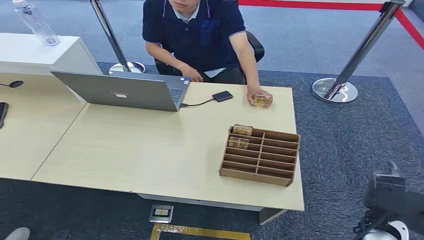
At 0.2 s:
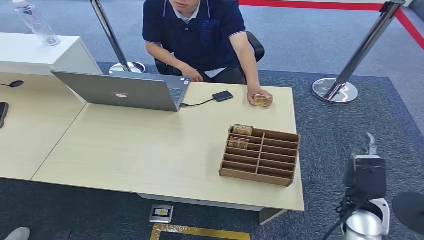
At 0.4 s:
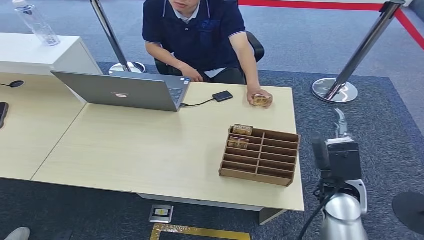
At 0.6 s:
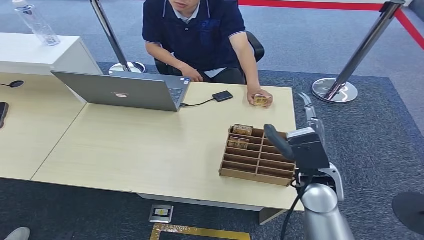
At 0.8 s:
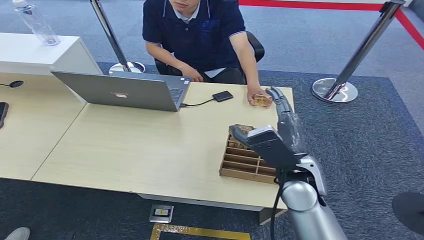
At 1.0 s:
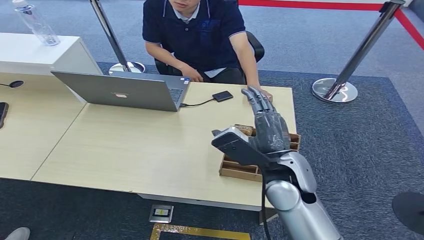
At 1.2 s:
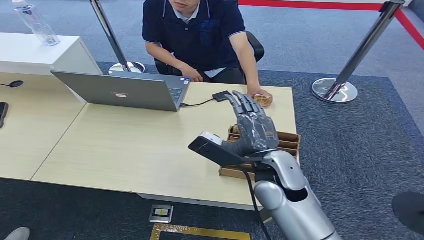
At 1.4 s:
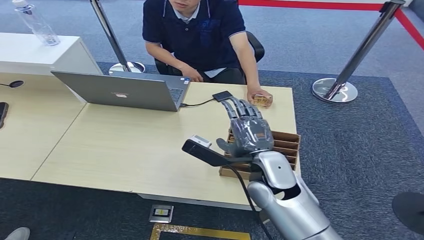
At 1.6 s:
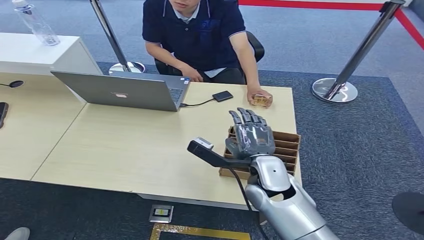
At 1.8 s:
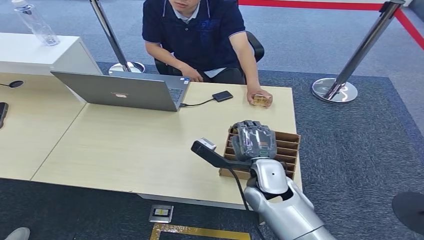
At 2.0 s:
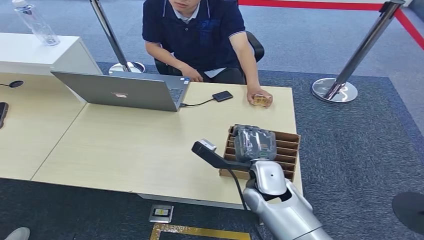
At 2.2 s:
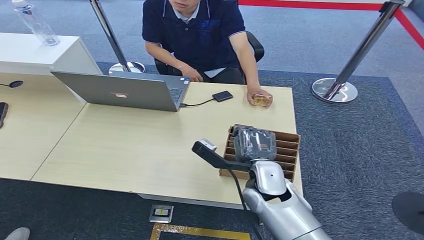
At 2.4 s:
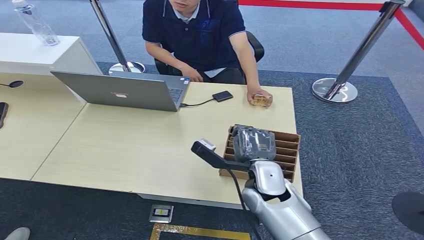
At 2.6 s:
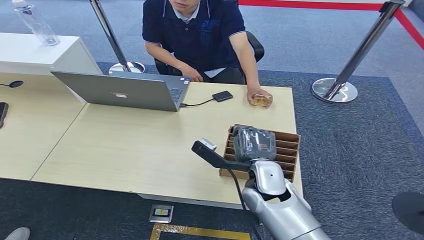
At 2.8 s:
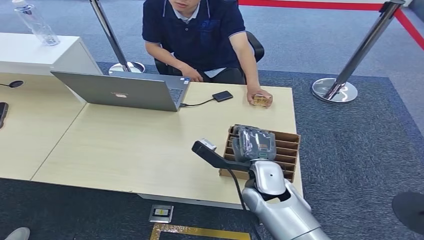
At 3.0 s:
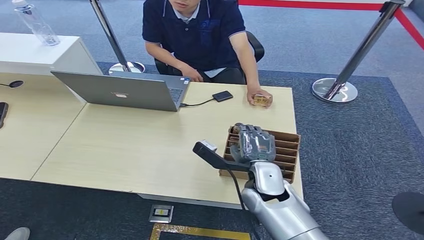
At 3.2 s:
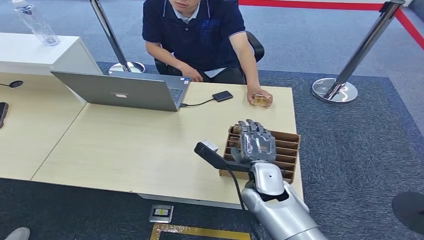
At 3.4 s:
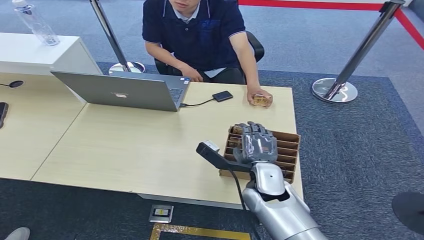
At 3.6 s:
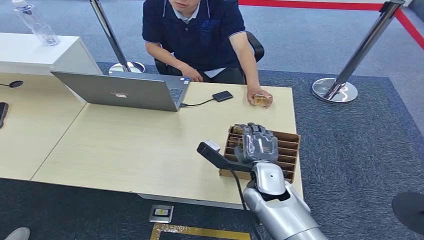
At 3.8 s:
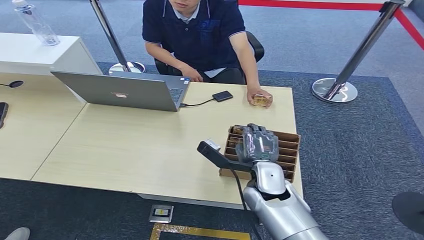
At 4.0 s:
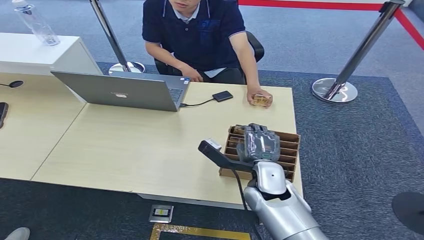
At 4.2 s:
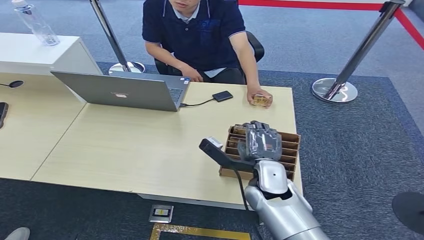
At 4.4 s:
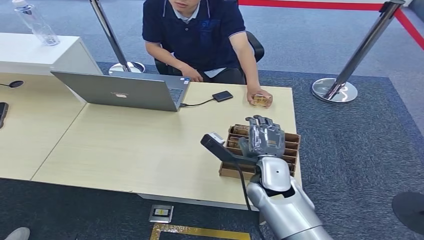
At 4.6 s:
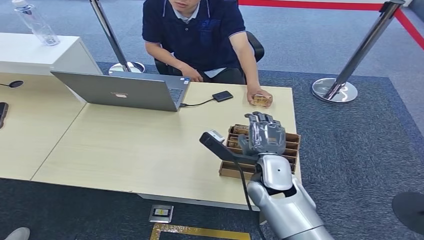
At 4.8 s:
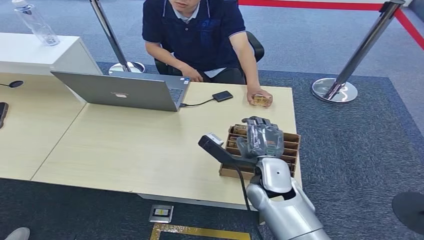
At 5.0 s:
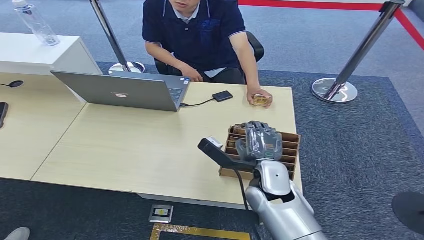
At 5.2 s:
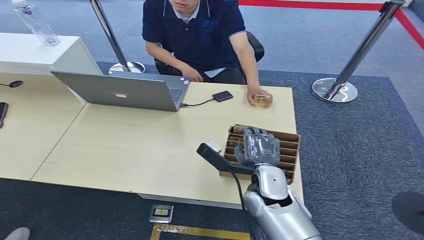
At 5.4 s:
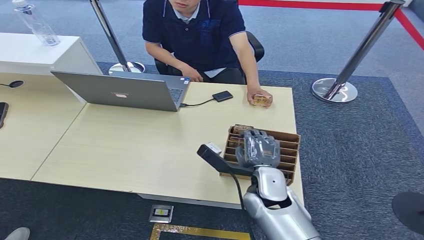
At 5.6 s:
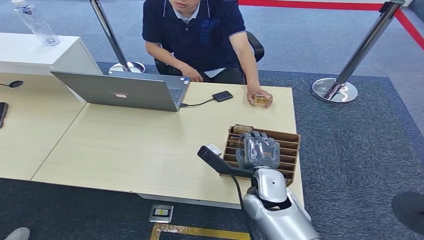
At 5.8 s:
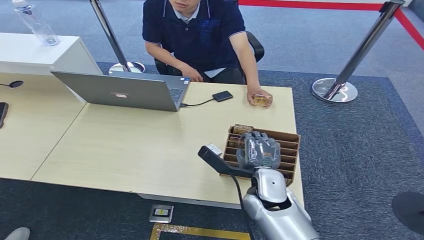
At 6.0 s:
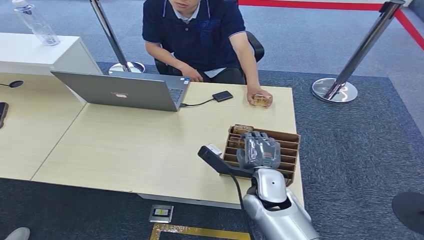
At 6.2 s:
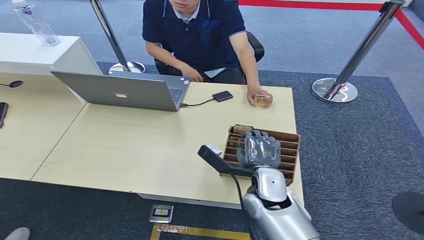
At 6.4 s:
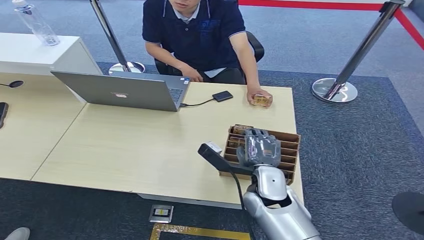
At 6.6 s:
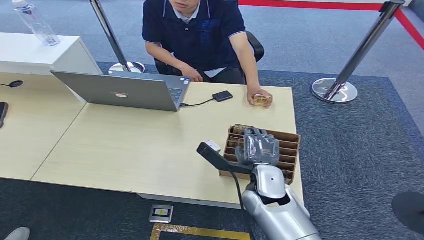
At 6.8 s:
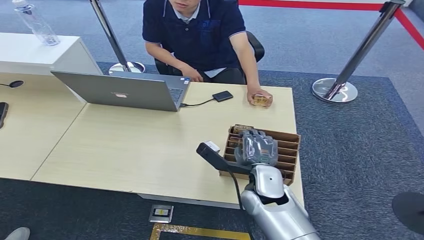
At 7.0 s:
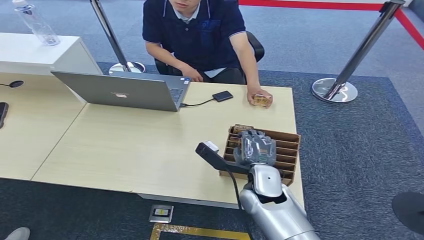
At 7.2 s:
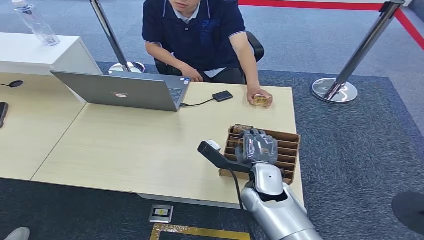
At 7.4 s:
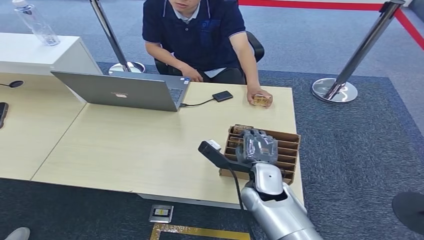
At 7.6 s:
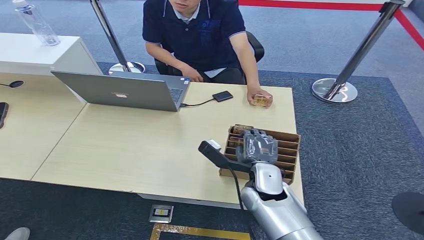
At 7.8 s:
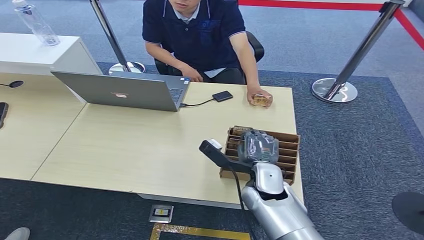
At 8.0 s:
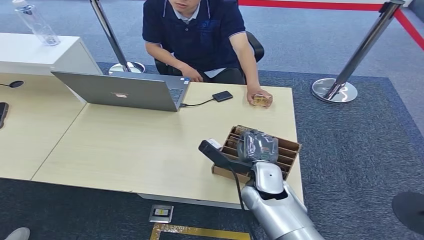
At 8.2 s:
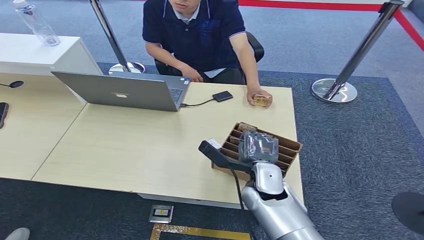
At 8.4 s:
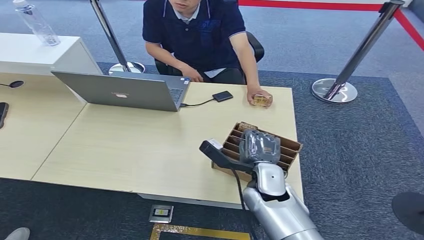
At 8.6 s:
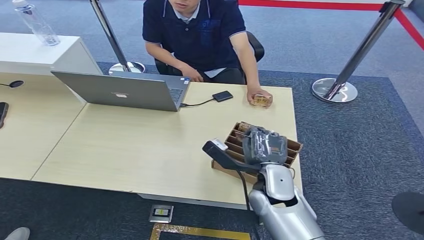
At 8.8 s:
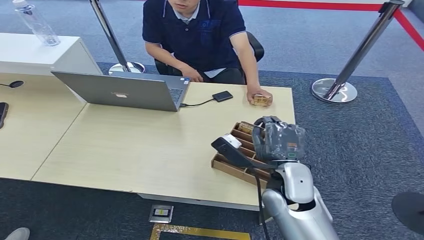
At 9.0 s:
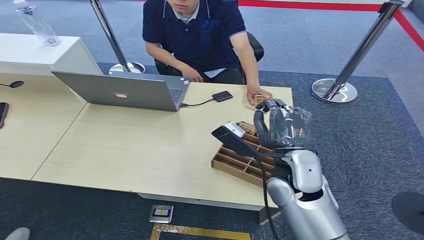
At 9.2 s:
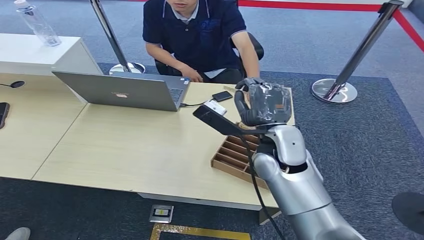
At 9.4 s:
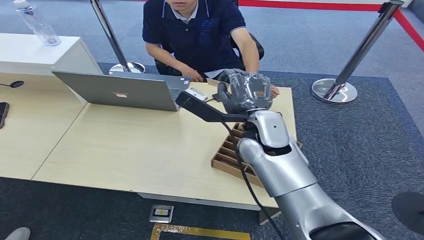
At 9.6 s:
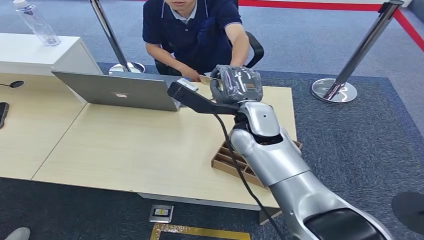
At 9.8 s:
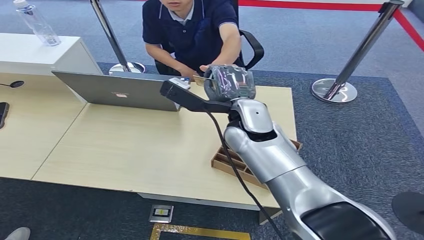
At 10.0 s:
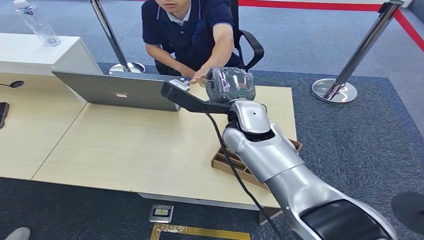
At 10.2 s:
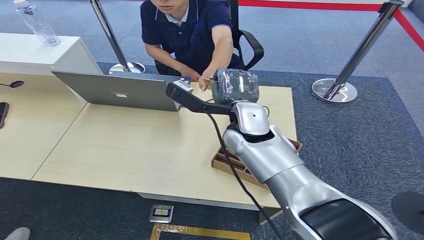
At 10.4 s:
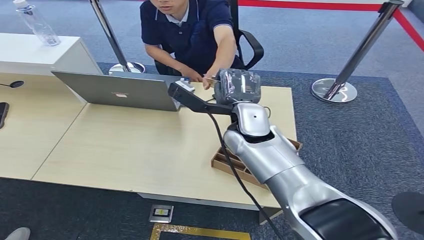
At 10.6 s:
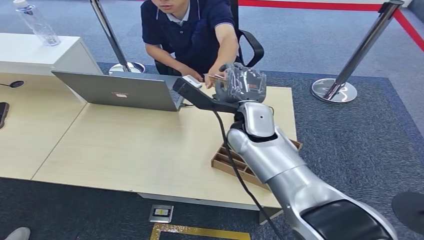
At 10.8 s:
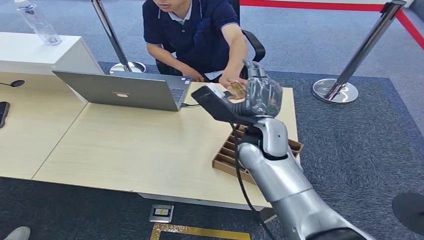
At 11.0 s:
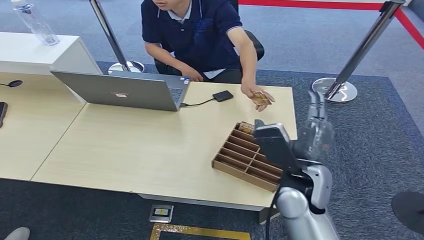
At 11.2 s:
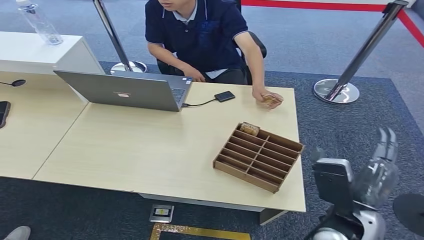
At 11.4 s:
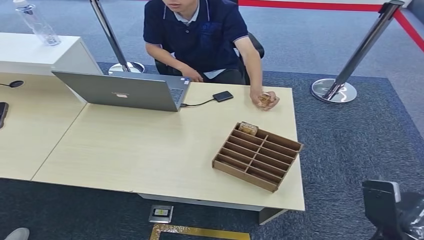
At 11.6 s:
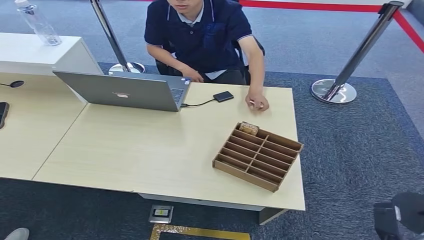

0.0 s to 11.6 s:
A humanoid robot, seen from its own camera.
Step, 0.0 to 9.0 s: Pick up the key card from the card box.
Step, 9.2 to 11.6 s: Hand the key card to the target.
1.4 to 2.8 s: The right hand shifts some 5 cm downward.
2.8 to 7.2 s: There are only small adjustments of the hands.
7.2 to 8.8 s: The right hand shifts some 5 cm upward.
8.8 to 10.2 s: The right hand goes roughly 15 cm forward, upward and to the left.
10.2 to 11.6 s: The right hand travels to the right, backward and downward by about 40 cm.

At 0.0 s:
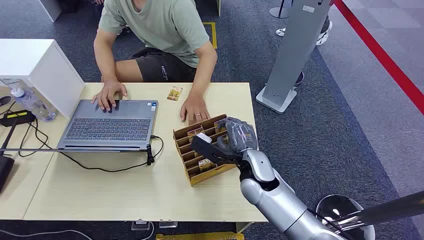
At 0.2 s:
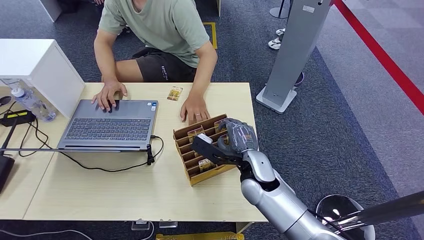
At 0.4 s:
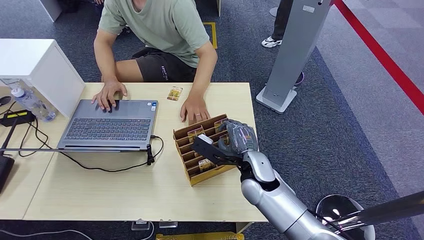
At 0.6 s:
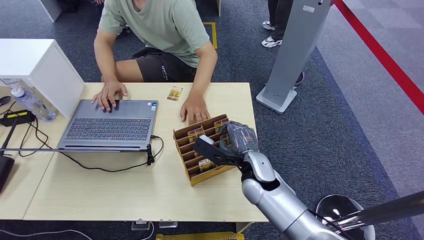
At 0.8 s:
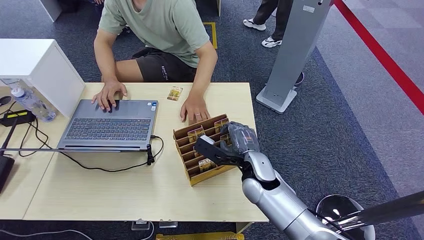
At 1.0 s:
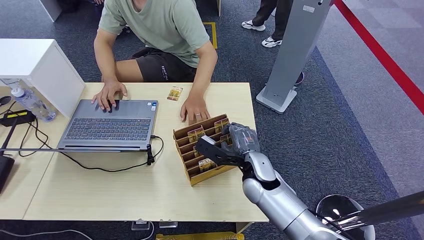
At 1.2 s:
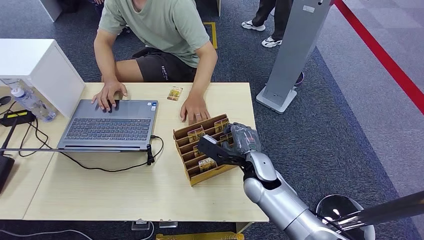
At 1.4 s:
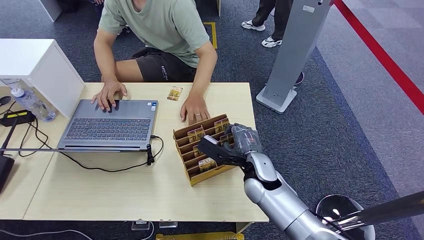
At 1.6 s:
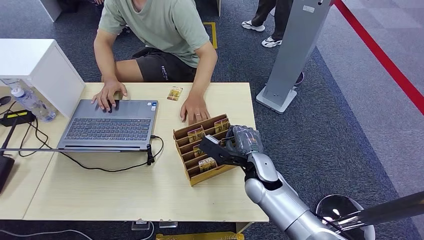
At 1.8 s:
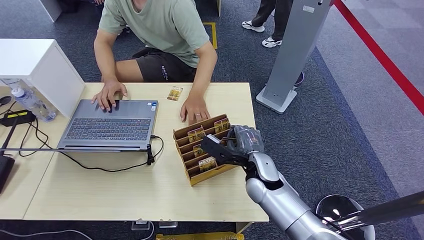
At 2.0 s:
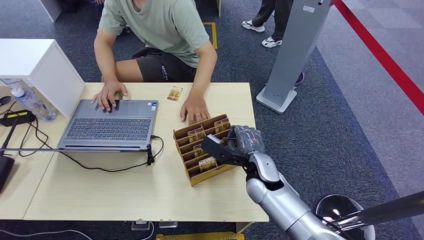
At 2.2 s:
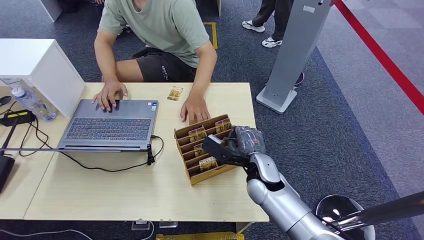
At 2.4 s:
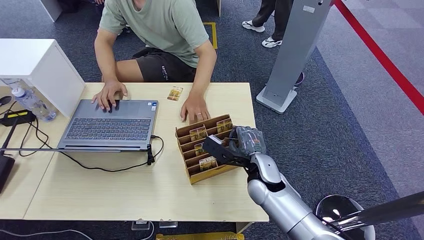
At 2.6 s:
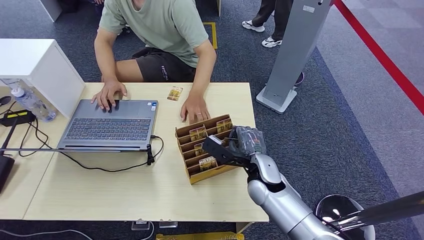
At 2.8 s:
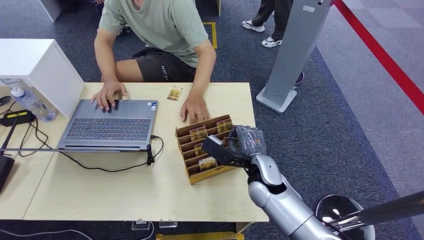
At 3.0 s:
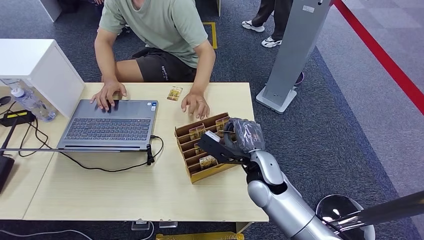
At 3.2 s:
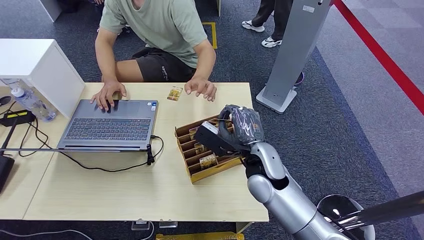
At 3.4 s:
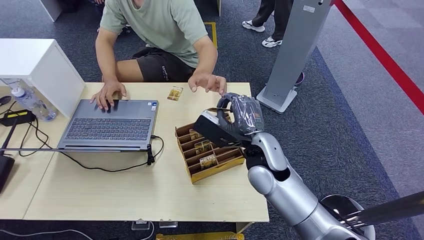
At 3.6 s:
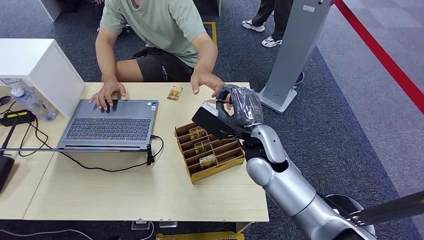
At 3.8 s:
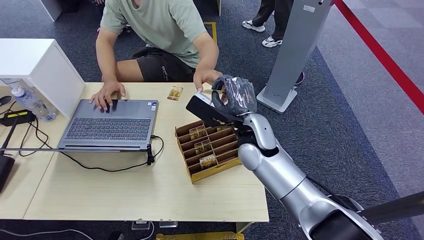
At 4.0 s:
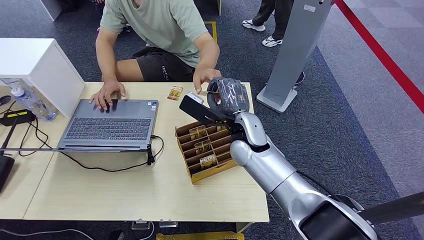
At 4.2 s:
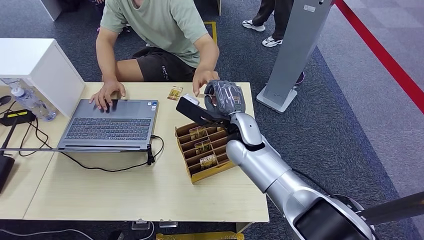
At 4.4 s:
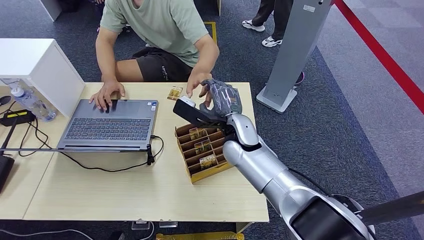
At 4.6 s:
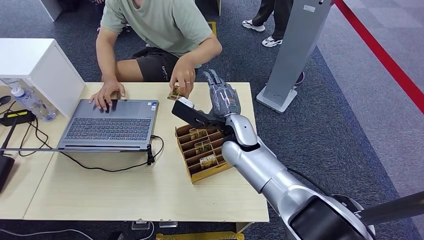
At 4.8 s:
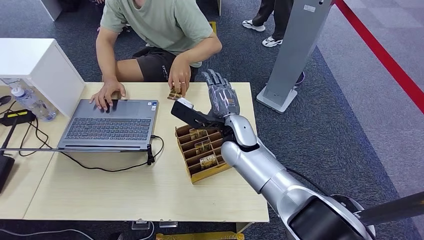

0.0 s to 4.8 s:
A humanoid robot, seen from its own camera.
Step, 0.0 to 3.2 s: Pick up the key card from the card box.
Step, 3.6 to 4.8 s: Hand the key card to the target.
1.6 to 3.2 s: The right hand goes some 5 cm upward.
3.2 to 4.8 s: The right hand shifts about 10 cm forward and to the left.
